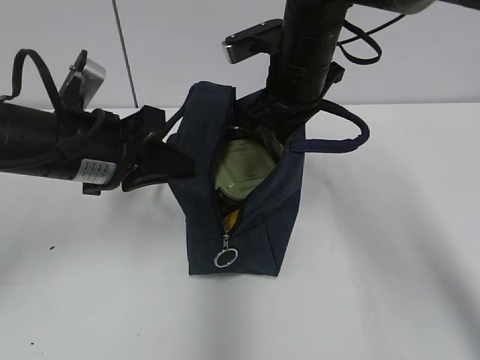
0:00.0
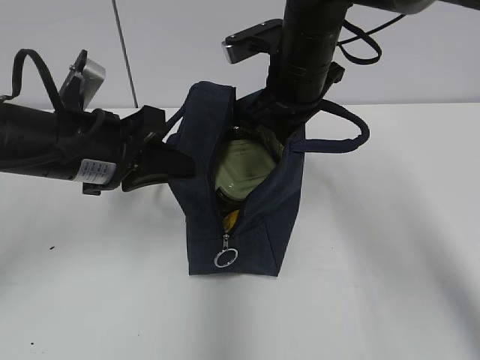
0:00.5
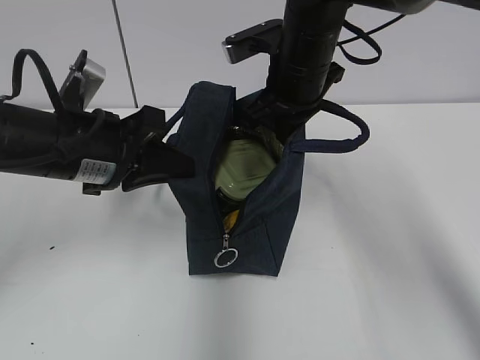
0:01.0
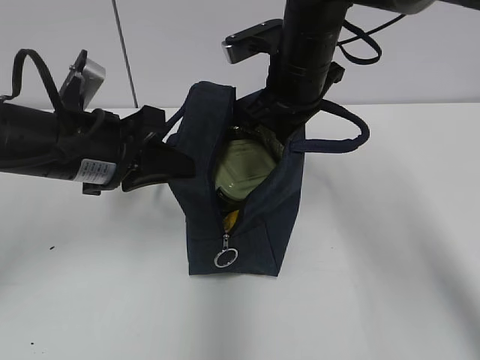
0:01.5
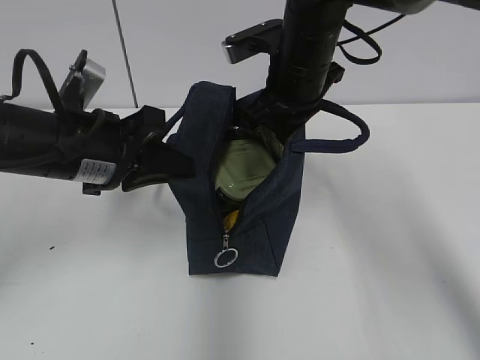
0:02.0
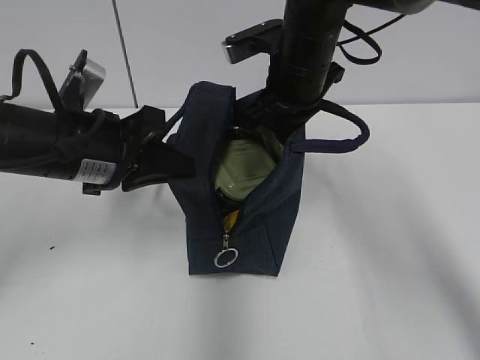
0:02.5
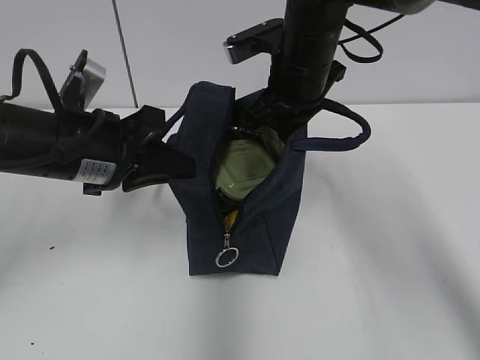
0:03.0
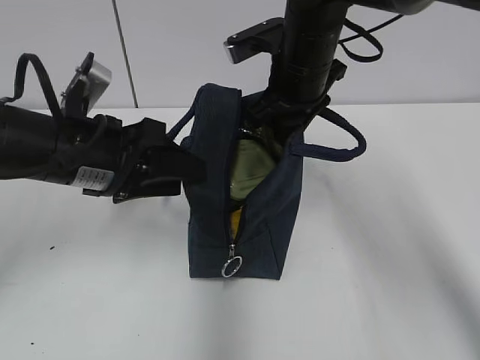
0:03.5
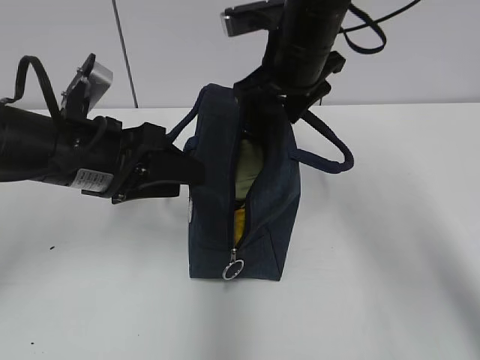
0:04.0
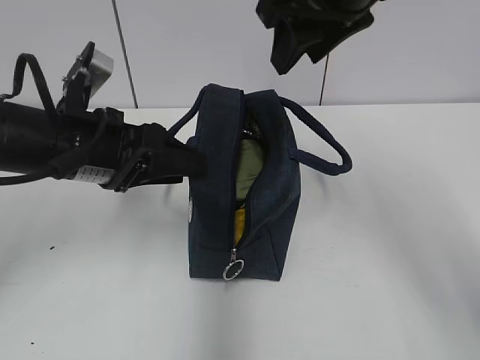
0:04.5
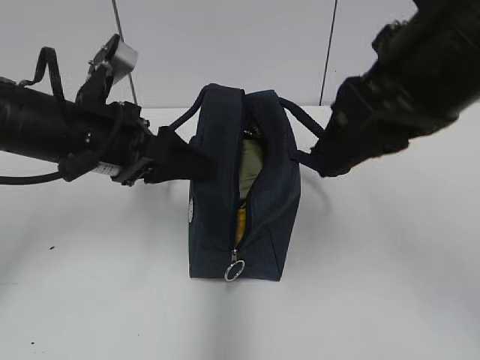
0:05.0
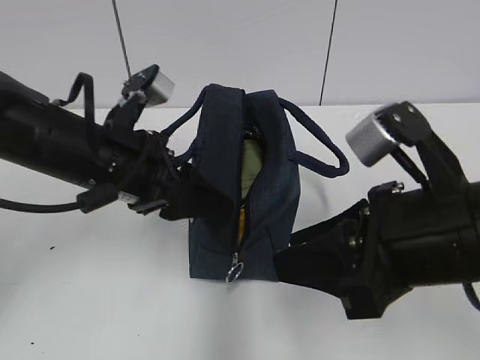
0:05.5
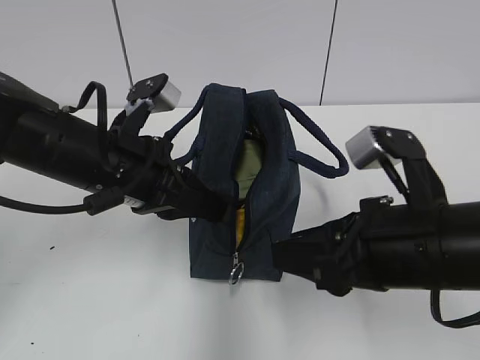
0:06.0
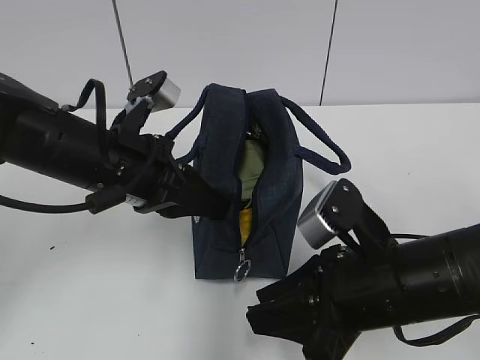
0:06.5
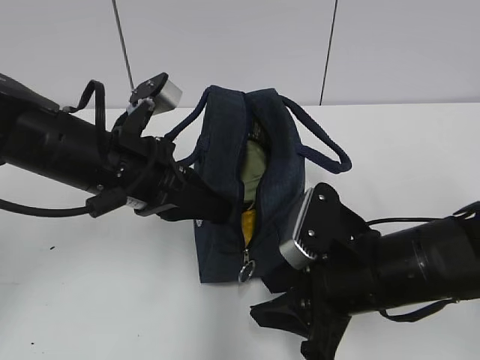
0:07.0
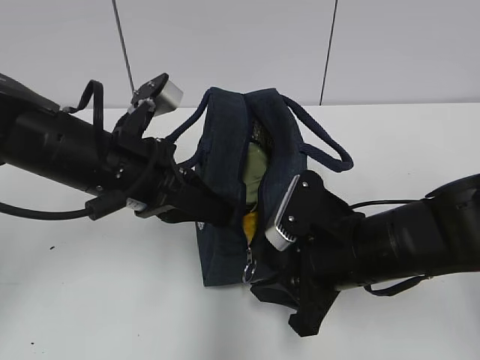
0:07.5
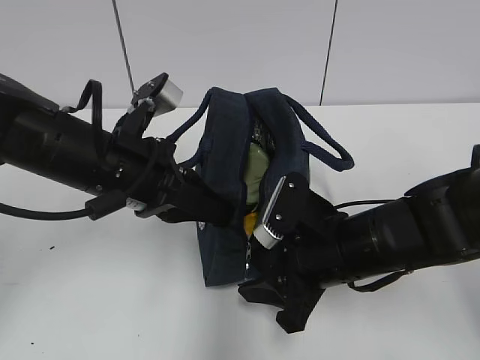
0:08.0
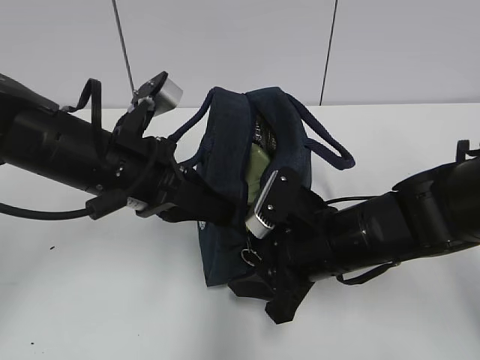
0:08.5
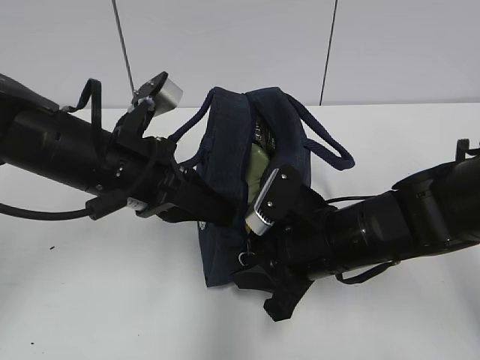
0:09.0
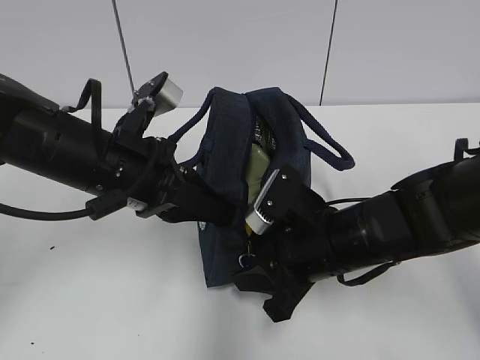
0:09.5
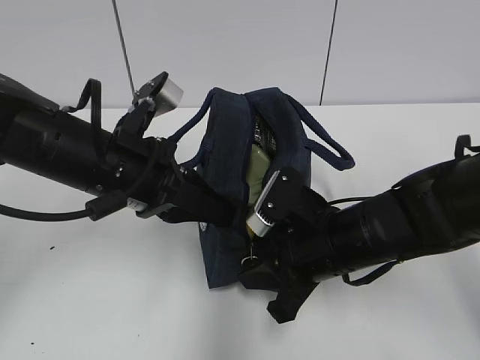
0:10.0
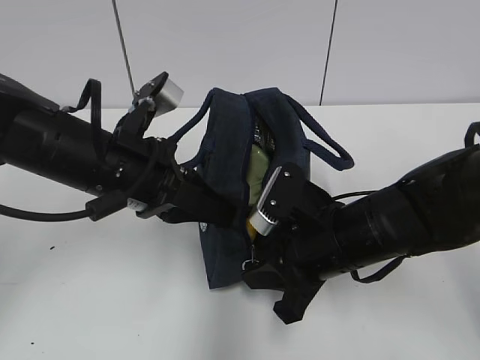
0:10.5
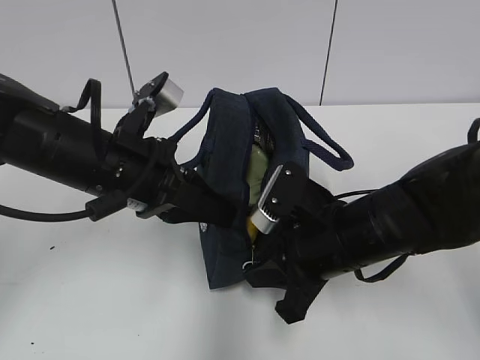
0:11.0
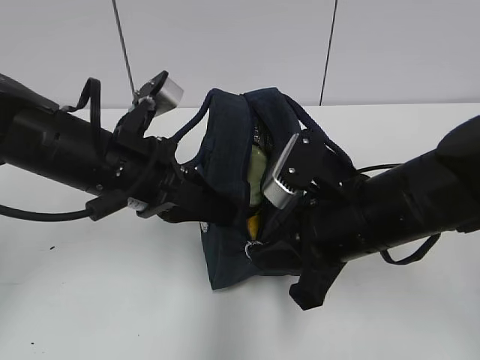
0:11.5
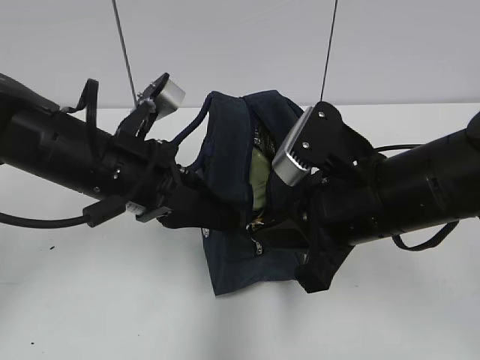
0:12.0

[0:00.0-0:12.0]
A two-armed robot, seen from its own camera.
0:00.0 to 0:02.0: Neither gripper changes place.
0:02.0 to 0:04.0: The left gripper opens. The right gripper opens its fingers.
0:04.0 to 0:06.0: The right gripper travels backward by roughly 20 cm, while the left gripper closes up.
0:06.0 to 0:08.0: The right gripper goes roughly 10 cm downward and forward.
0:08.0 to 0:10.0: The right gripper closes.
0:10.0 to 0:12.0: The right gripper heads upward, covering approximately 10 cm.

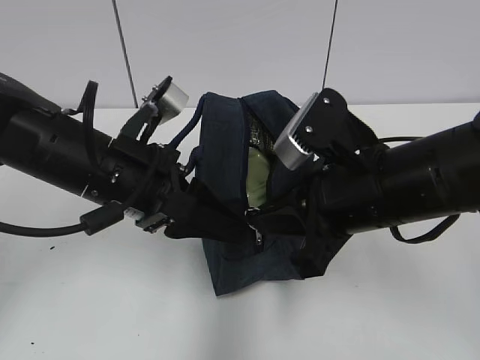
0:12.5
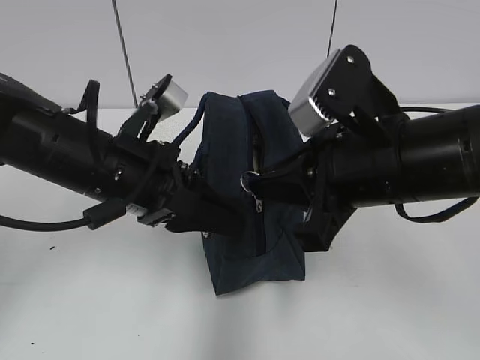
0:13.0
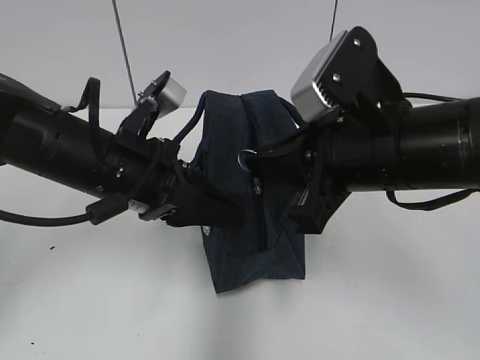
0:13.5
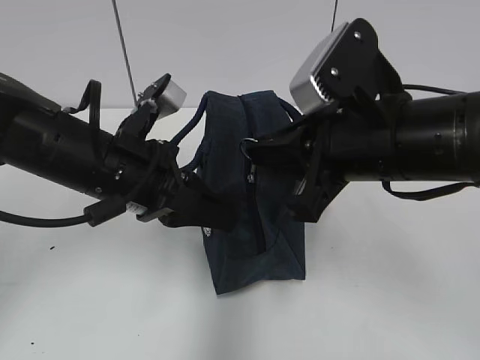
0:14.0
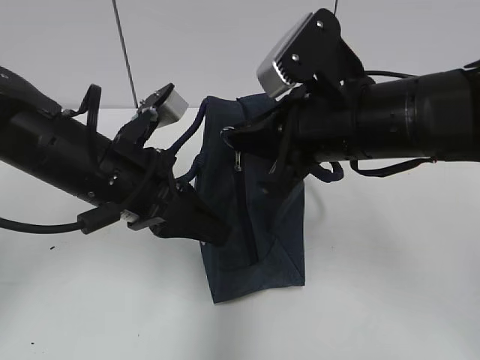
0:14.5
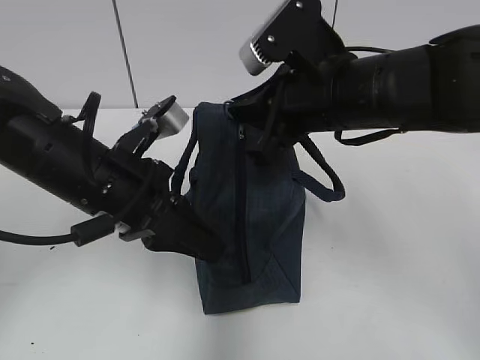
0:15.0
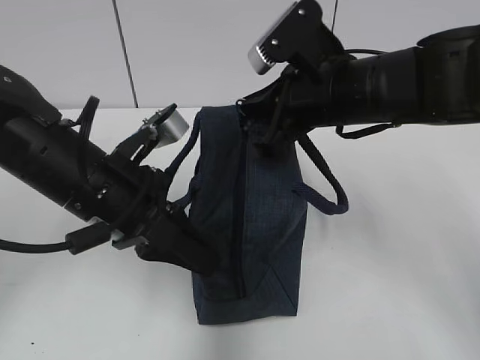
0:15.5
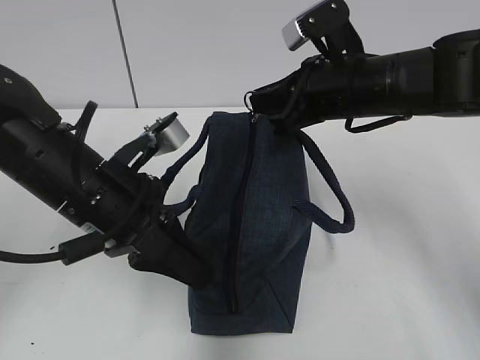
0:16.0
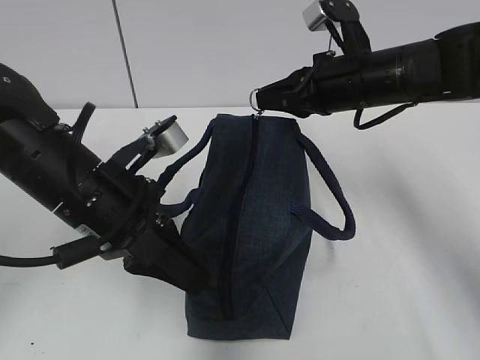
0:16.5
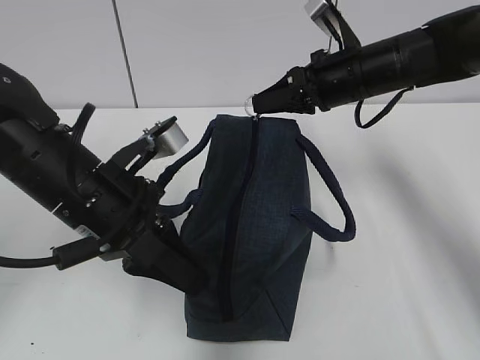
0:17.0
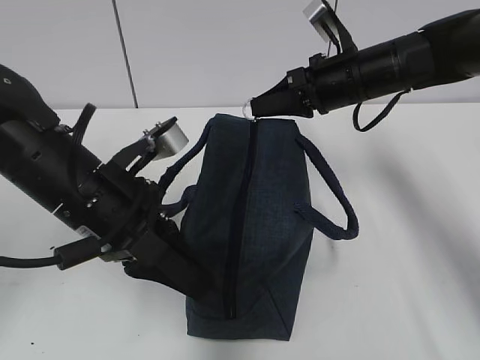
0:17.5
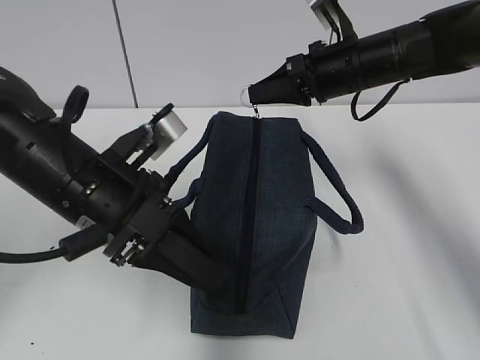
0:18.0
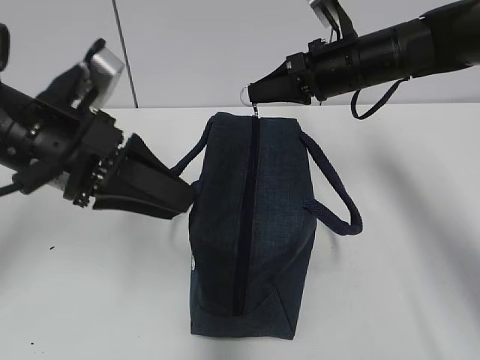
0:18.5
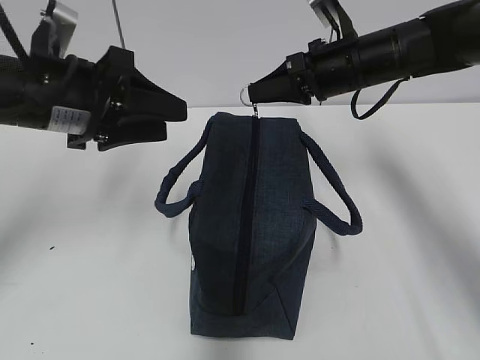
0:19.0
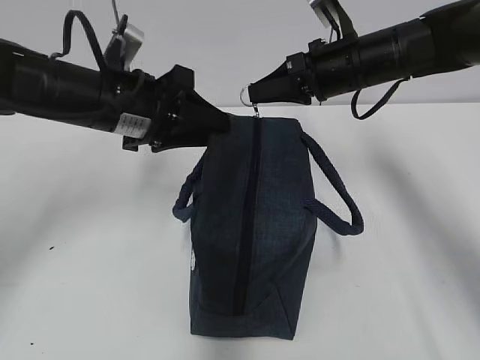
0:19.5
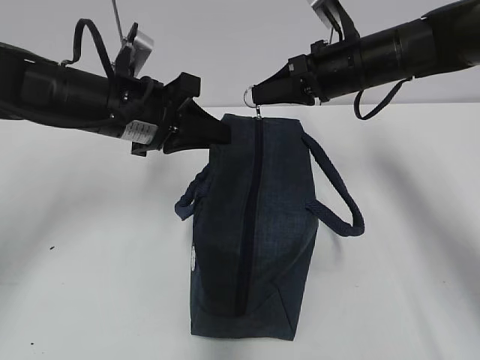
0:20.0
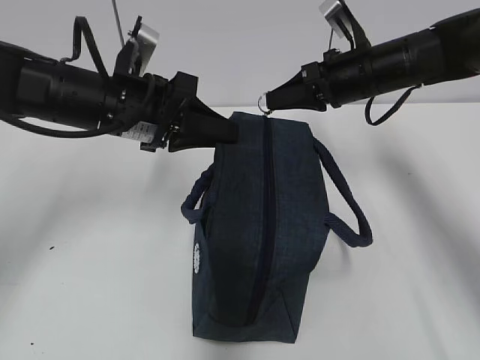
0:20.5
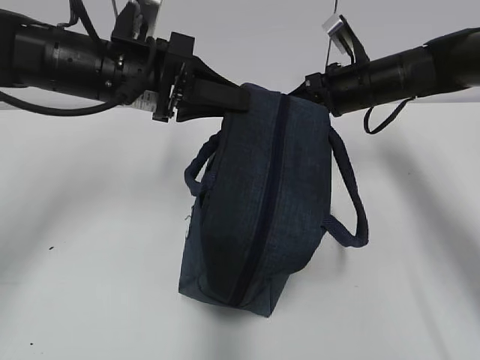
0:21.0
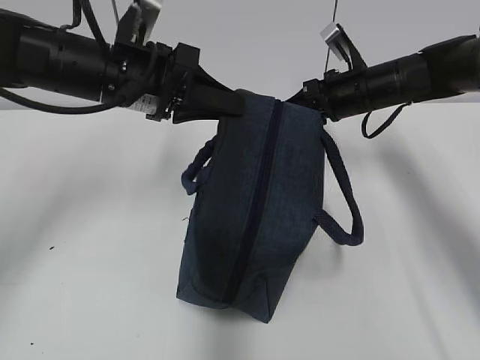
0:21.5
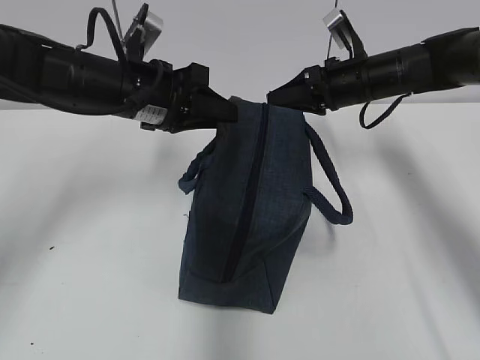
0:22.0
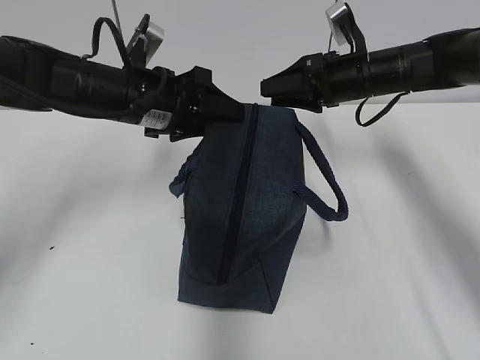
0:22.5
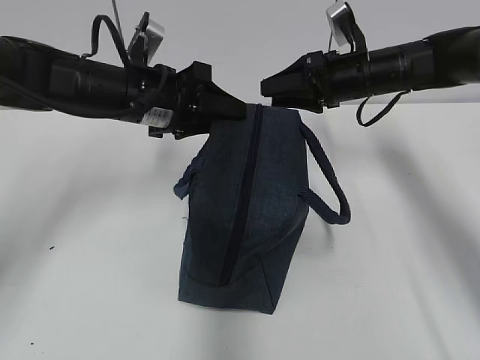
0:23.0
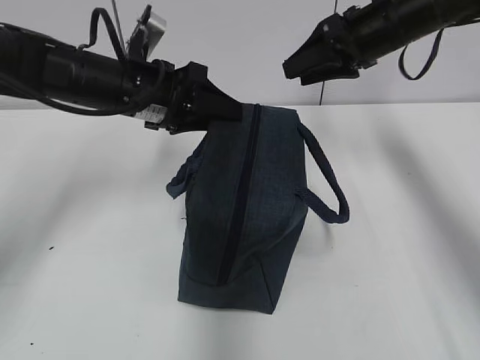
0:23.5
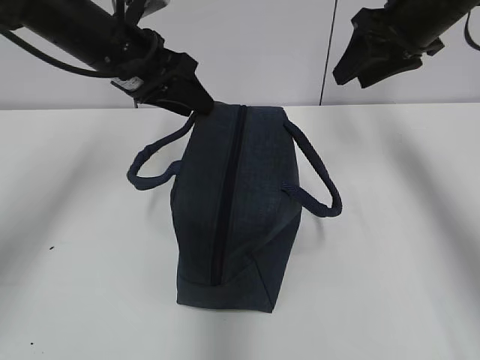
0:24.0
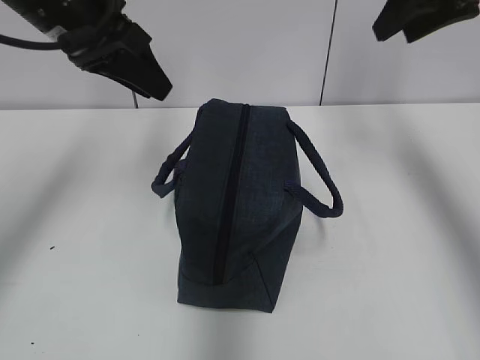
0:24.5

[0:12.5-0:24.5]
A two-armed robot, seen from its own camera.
Step, 0:12.5 to 0:22.0: Pull the zipper with your right hand.
Step, 0:22.5 to 0:23.5: Grab the lunch bag with your left hand.
0:12.5 to 0:14.5: The left gripper closes up. Meanwhile the right gripper moves roughly 5 cm.
0:14.5 to 0:16.5: The right gripper heads forward and to the right, covering about 15 cm.
0:16.5 to 0:18.5: The left gripper shifts by some 5 cm, and opens its fingers.
0:18.5 to 0:20.5: The left gripper shifts about 10 cm forward, and closes up.
0:20.5 to 0:22.5: The right gripper opens up; the left gripper opens its fingers.
0:22.5 to 0:24.5: The left gripper moves upward, some 10 cm, and closes its fingers. Meanwhile the right gripper shifts some 20 cm upward and backward.

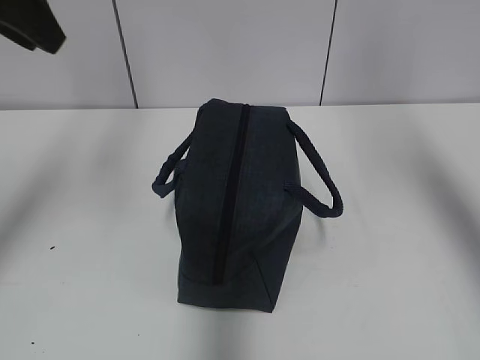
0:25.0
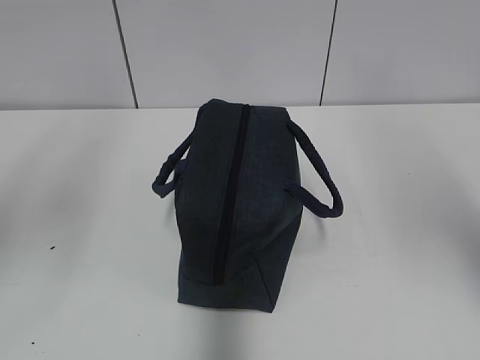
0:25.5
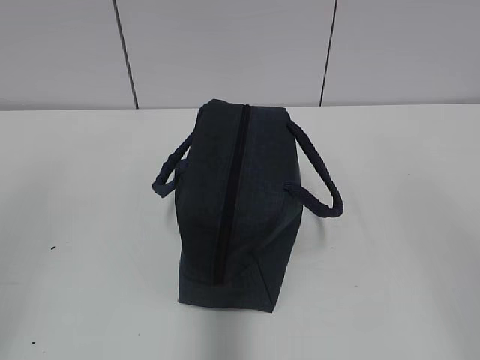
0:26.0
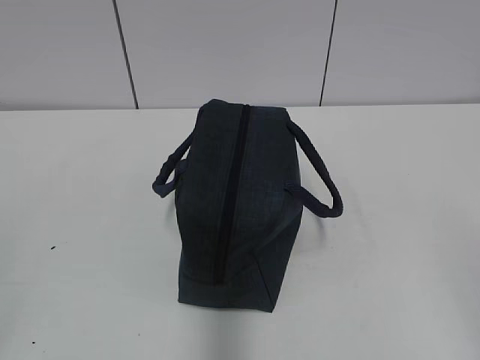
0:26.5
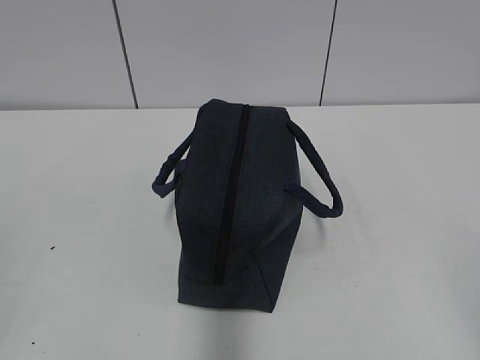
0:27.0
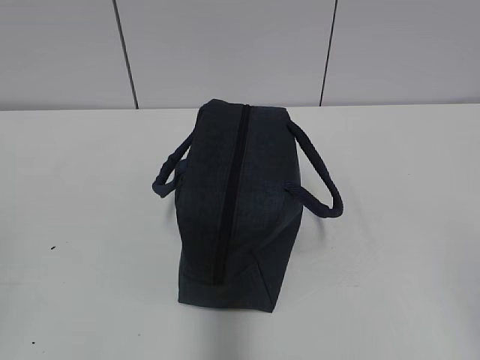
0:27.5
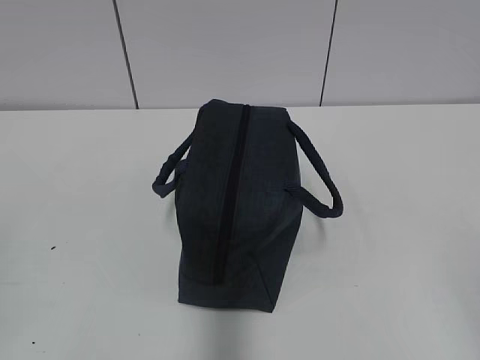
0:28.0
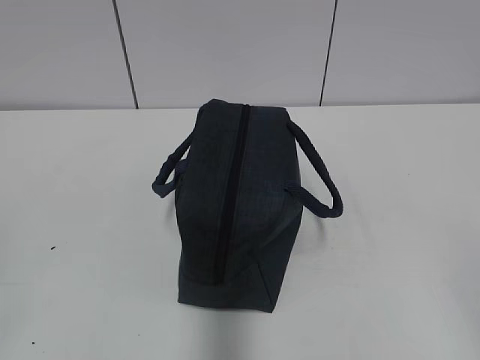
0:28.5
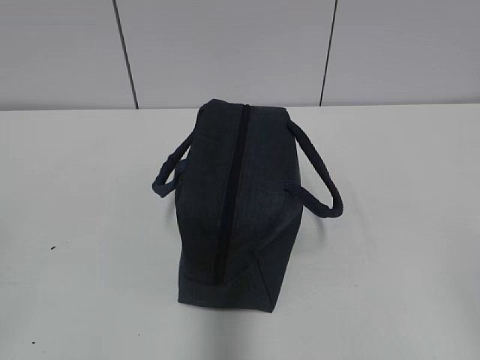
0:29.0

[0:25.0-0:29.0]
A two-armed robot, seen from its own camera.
0:25.0 to 0:27.0: The grippers both shift backward and downward by some 35 cm.
